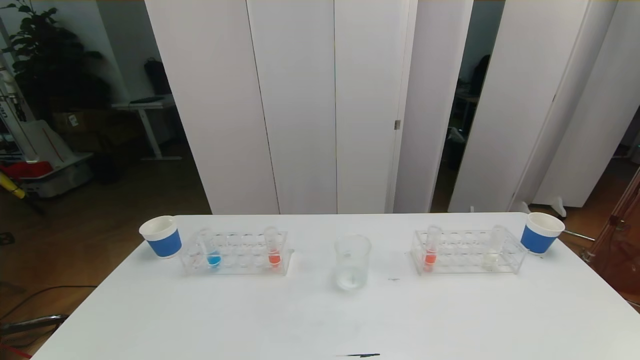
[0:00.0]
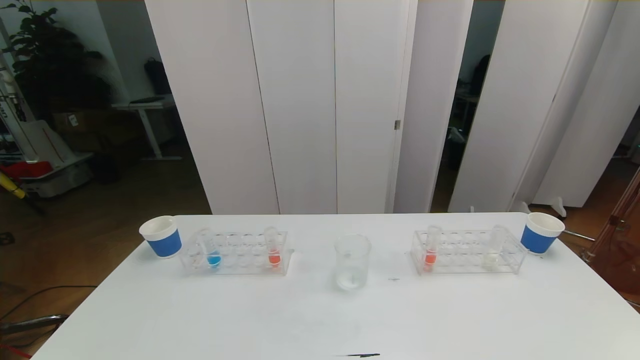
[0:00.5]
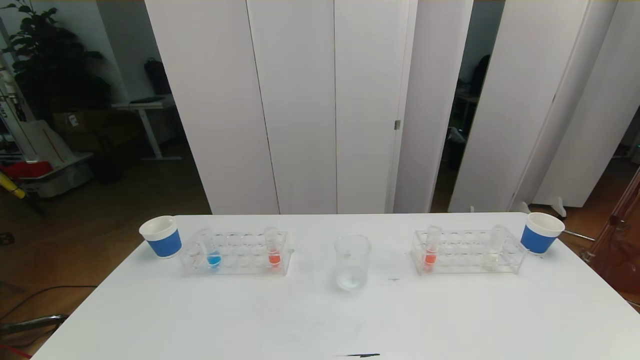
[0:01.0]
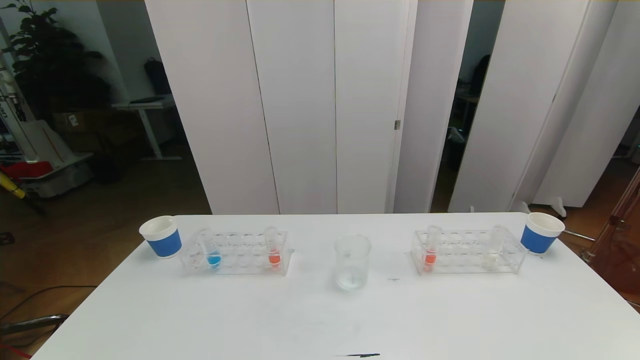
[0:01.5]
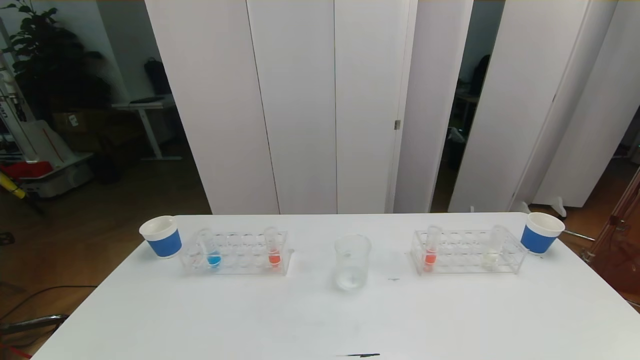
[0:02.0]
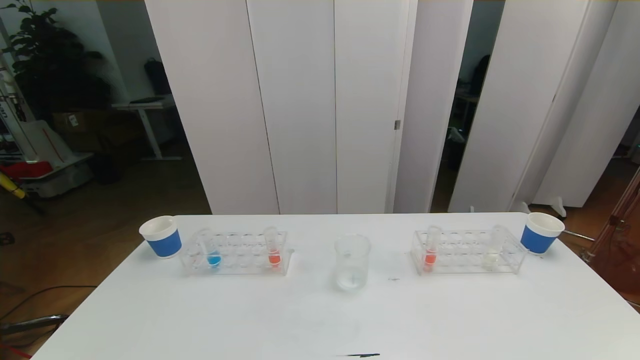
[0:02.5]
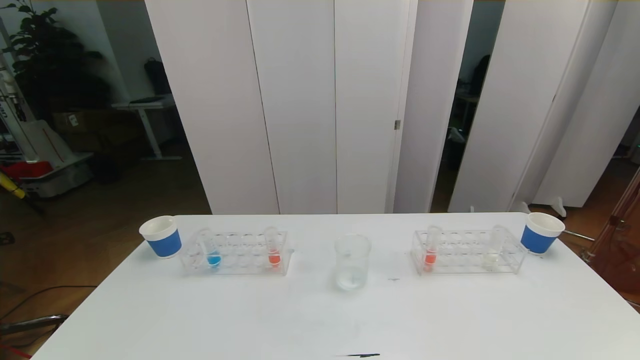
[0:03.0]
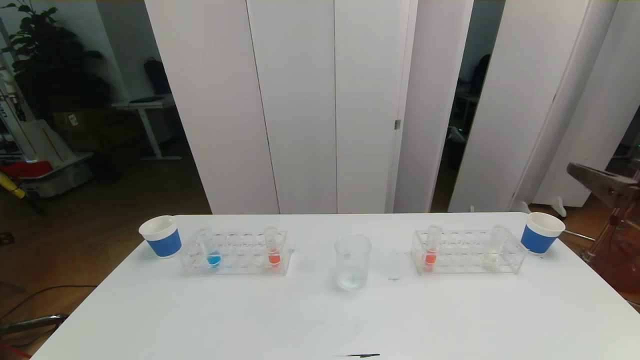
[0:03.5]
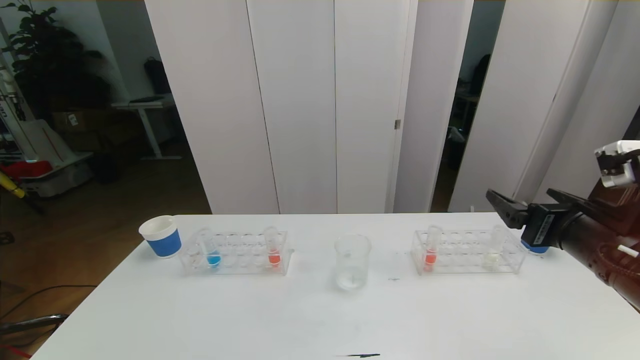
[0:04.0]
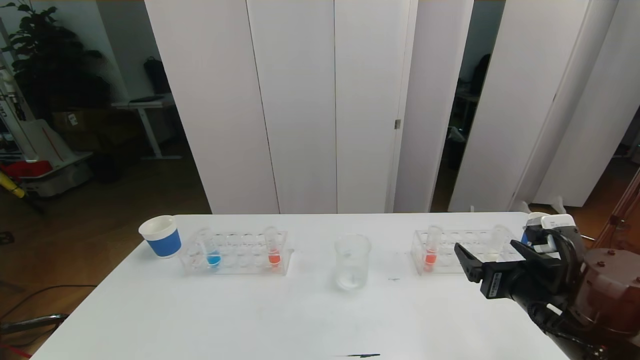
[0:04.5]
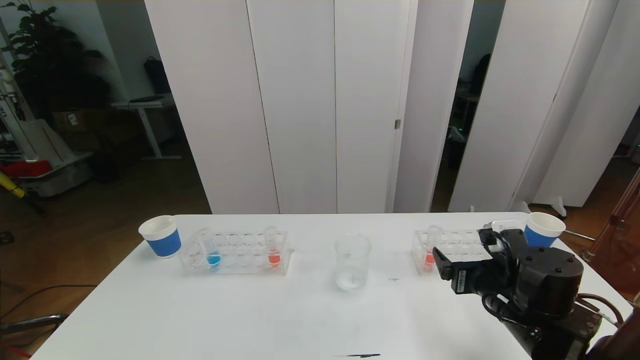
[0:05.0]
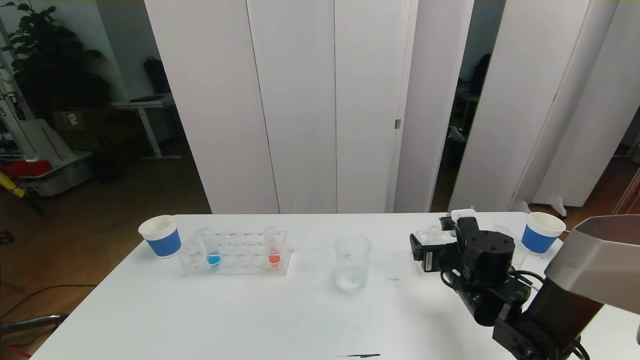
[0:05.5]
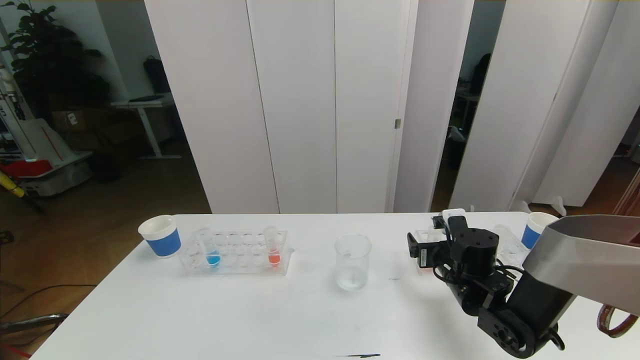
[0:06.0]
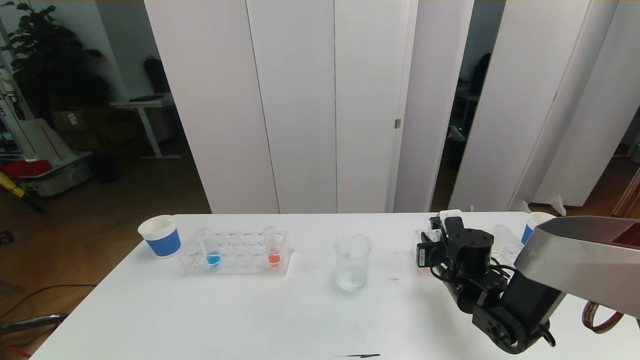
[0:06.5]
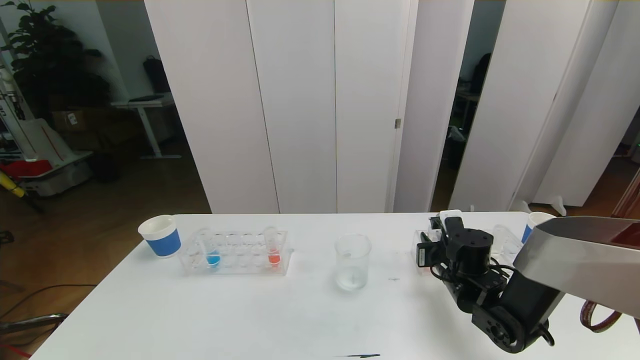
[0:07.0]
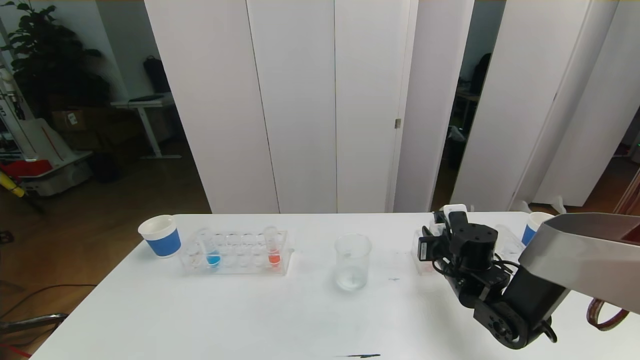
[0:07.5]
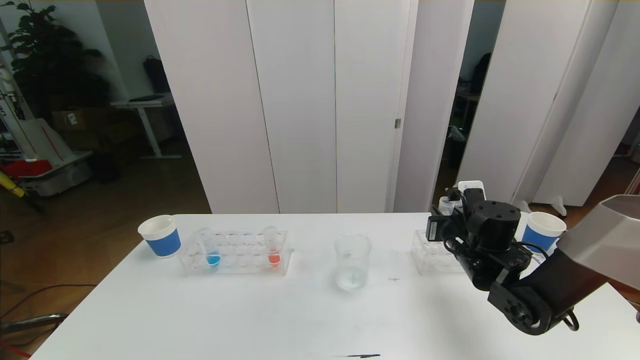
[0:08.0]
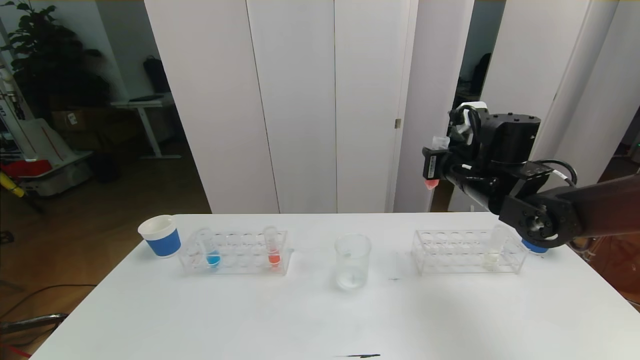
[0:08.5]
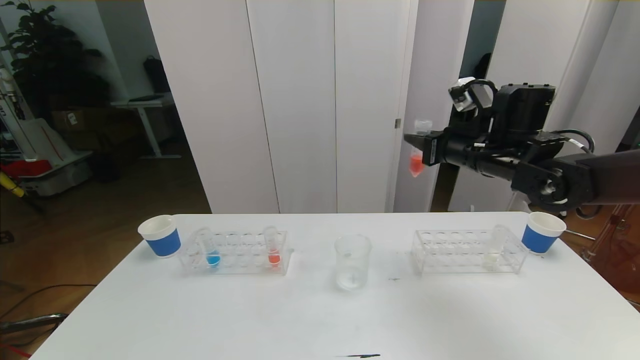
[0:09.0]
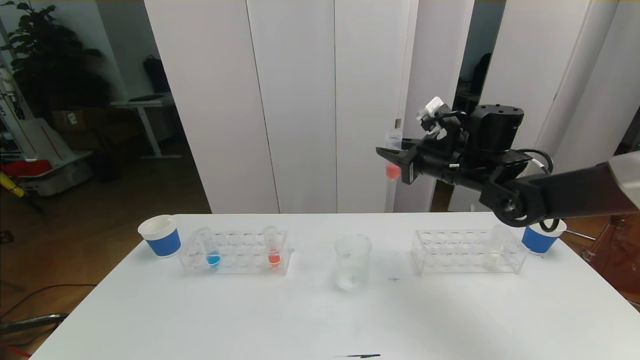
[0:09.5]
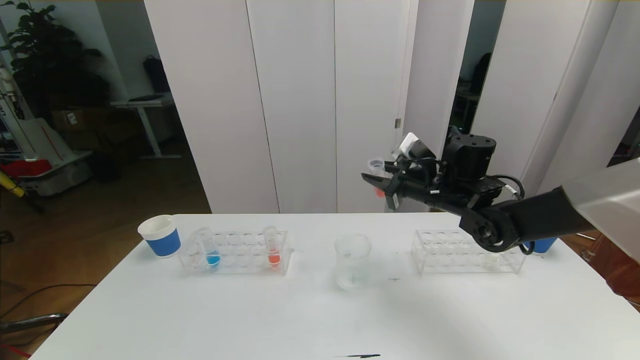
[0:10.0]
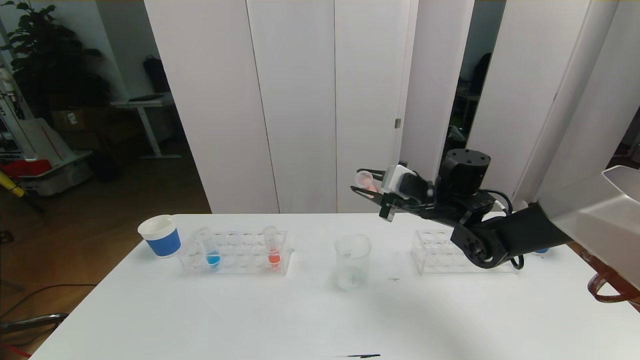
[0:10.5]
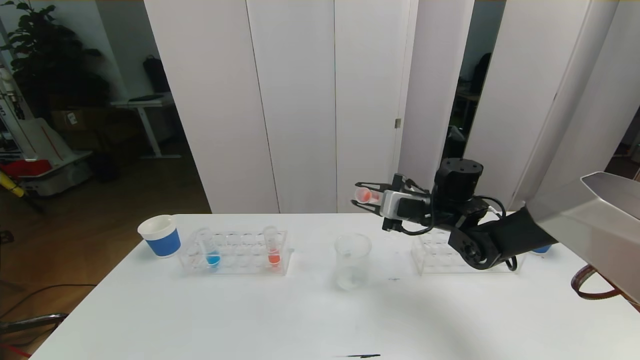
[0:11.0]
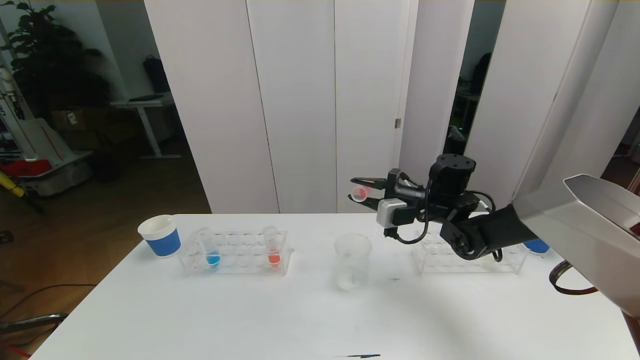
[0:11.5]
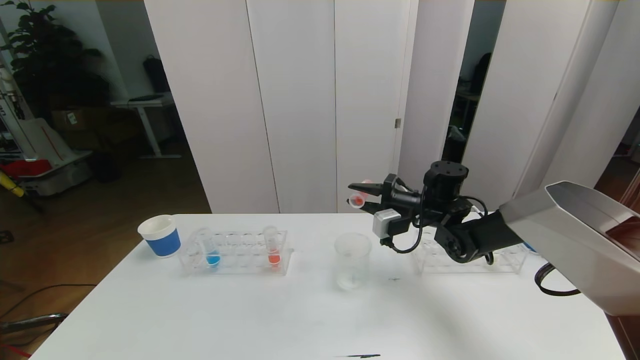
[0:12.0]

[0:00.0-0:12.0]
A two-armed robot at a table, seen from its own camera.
Task of the whole recording: pick up the test tube with red pigment the test tube with blue pigment and the test tube with white pigment by grippers and pour them into the beaker.
0:02.0 to 0:04.0: The right gripper heads forward, covering some 25 cm.
0:04.0 to 0:06.0: The right gripper travels downward and forward by roughly 20 cm.
0:06.0 to 0:08.0: The right gripper moves about 5 cm, and closes.
0:08.0 to 0:10.0: The right gripper moves upward and forward, approximately 10 cm.
0:10.0 to 0:12.0: The right gripper heads downward, covering roughly 5 cm.

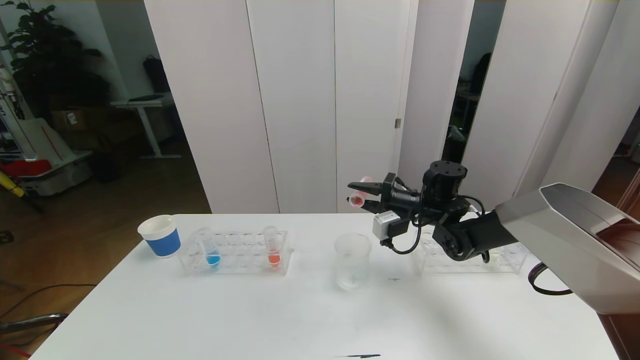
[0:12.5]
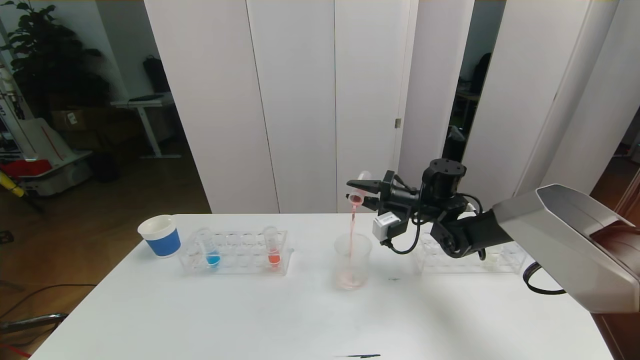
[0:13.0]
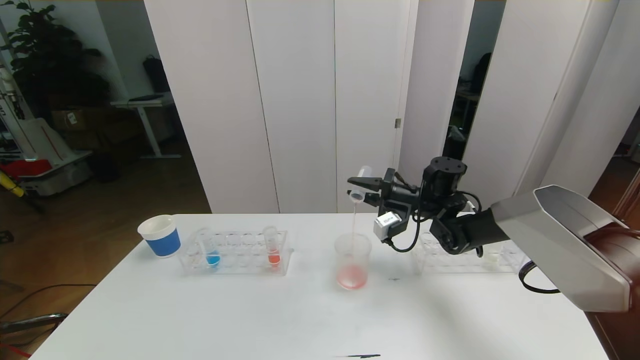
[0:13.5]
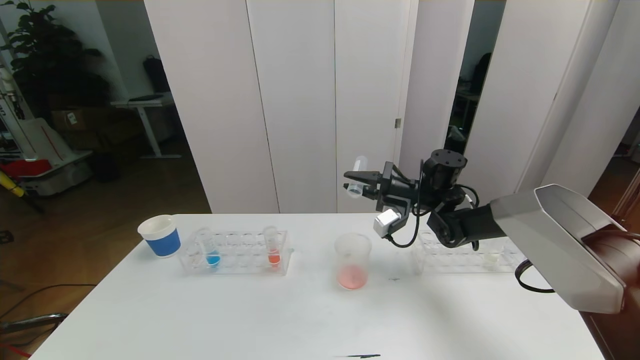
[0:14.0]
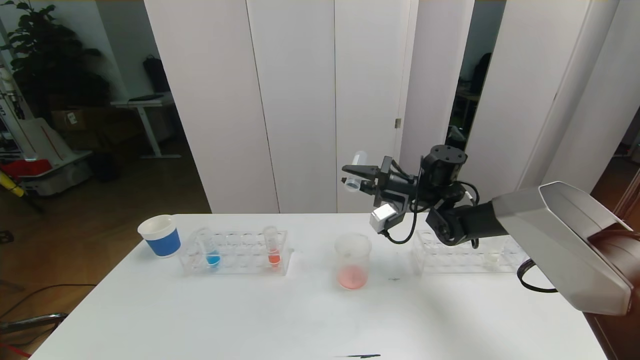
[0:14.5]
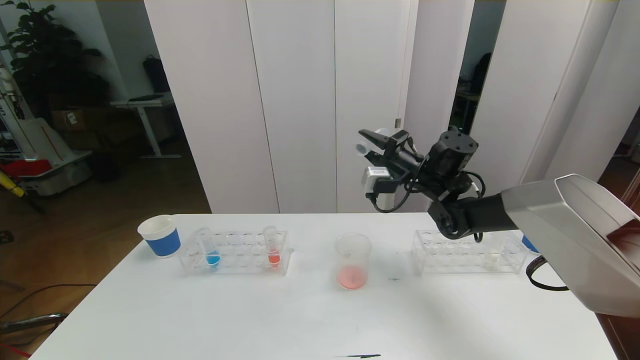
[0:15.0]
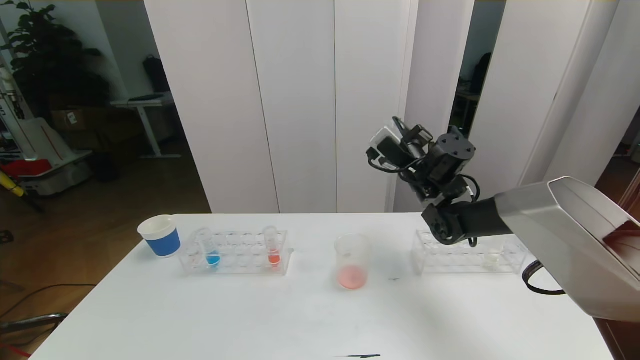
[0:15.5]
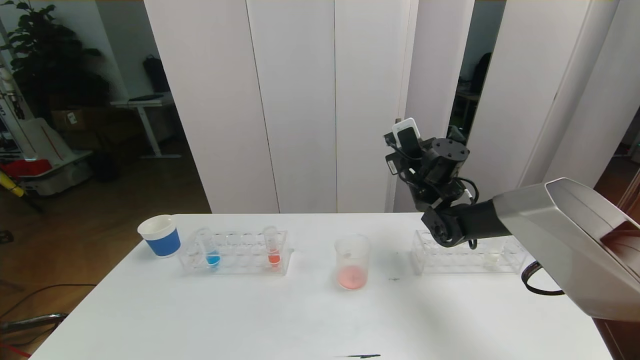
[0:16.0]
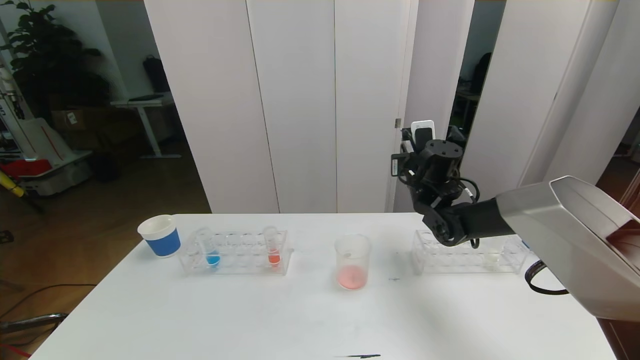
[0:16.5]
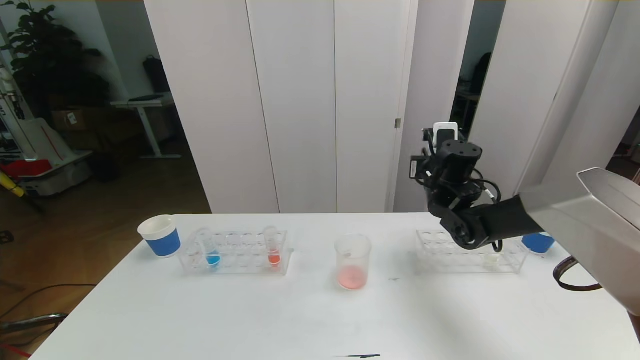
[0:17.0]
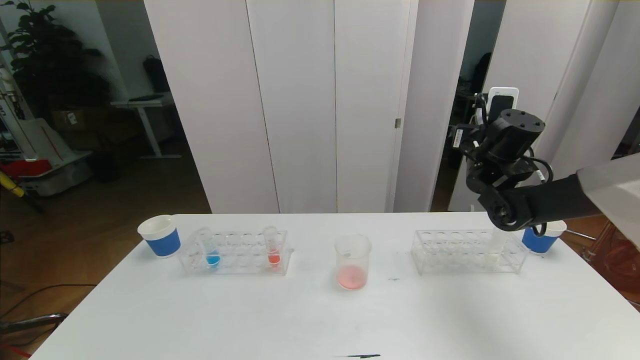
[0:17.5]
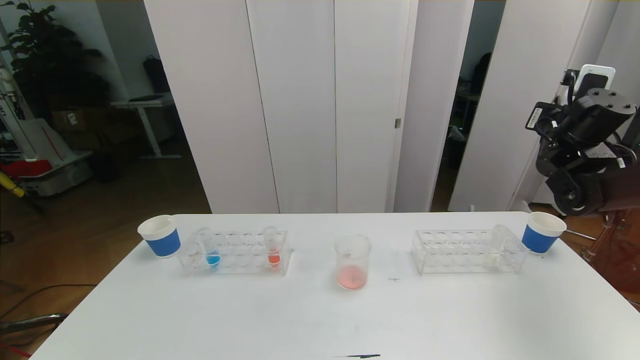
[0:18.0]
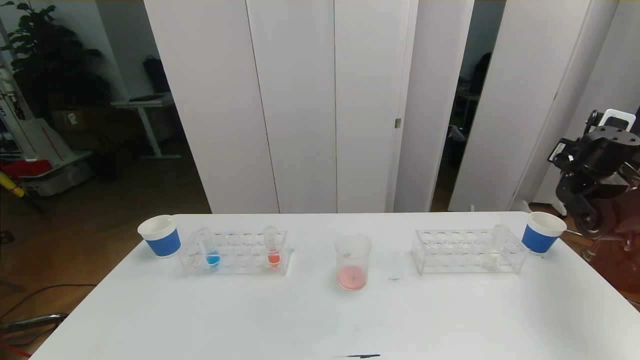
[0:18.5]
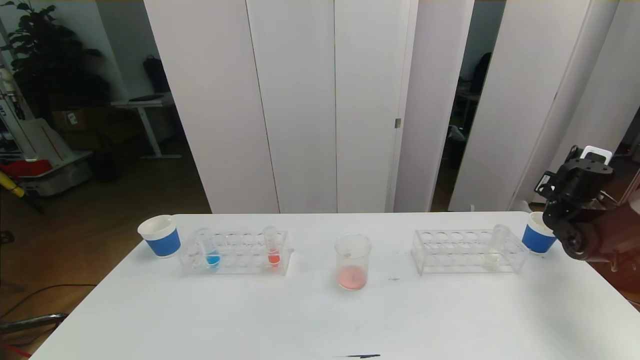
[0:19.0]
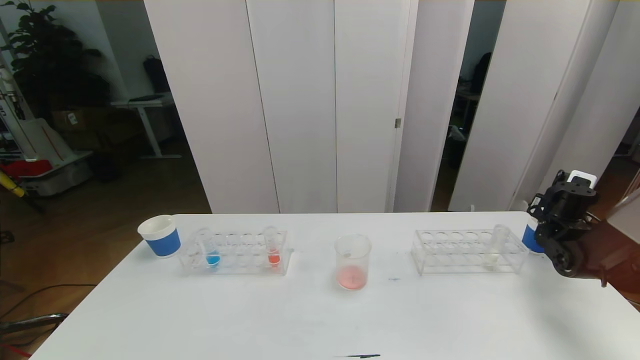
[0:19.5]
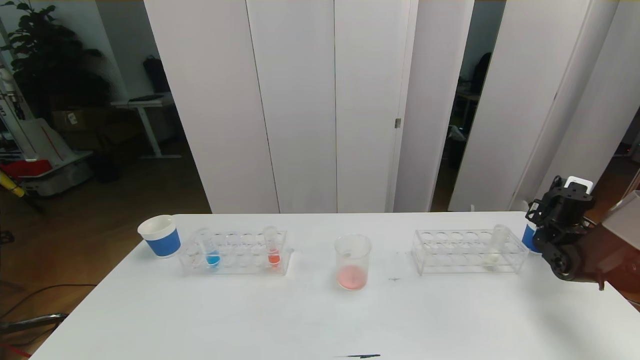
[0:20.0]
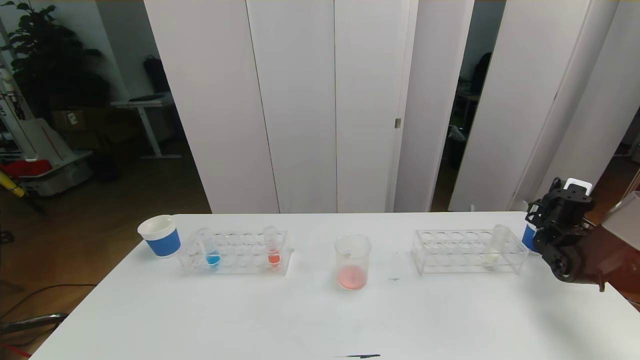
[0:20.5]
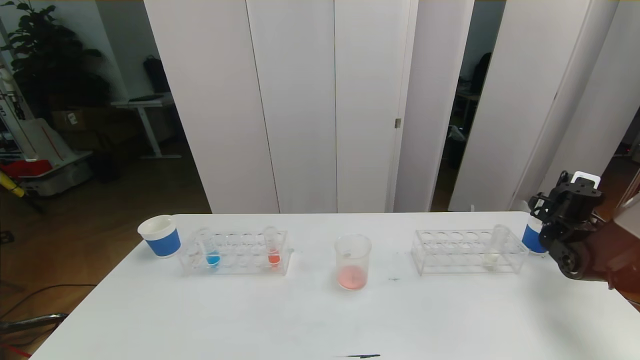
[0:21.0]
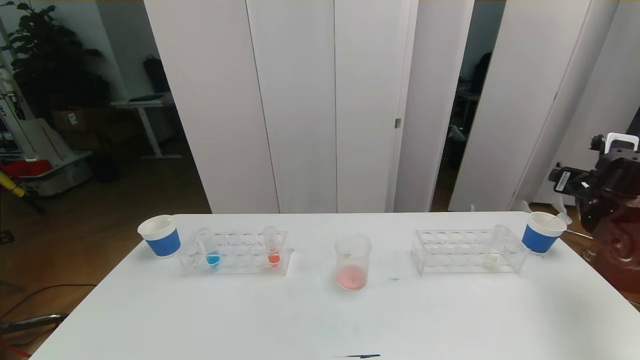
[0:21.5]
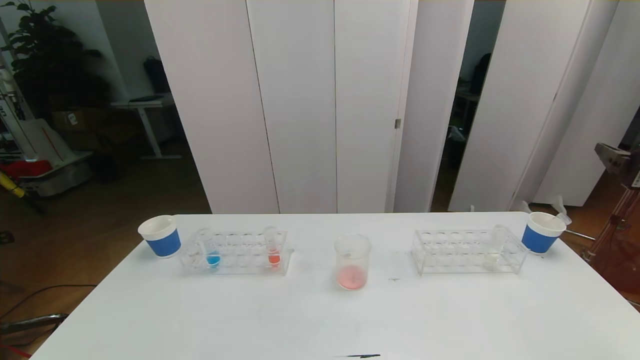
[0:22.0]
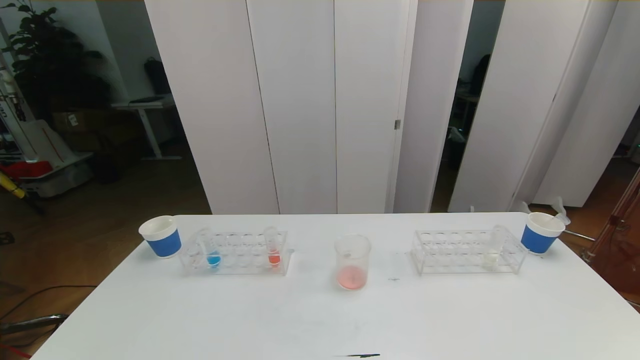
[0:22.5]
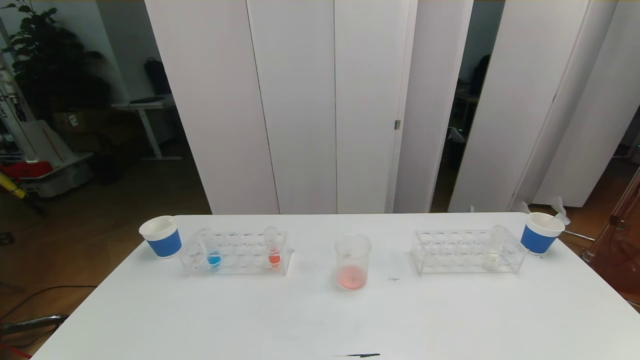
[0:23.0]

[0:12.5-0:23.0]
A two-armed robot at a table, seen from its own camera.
Task of the whole recording: pick up the test tube with red pigment the test tube with blue pigment and the test tube with white pigment by grippers and pour them into the beaker.
0:16.5 to 0:19.0: The right gripper is displaced to the right by about 25 cm.
0:19.0 to 0:21.0: The right gripper opens up.
0:21.0 to 0:23.0: The right gripper travels backward by roughly 50 cm.
